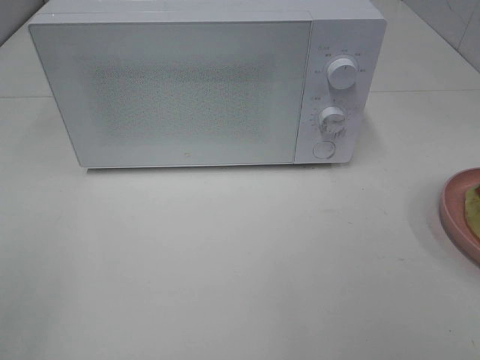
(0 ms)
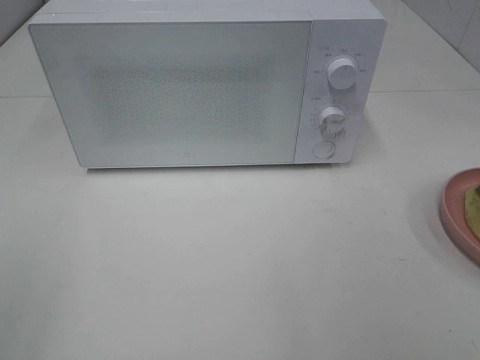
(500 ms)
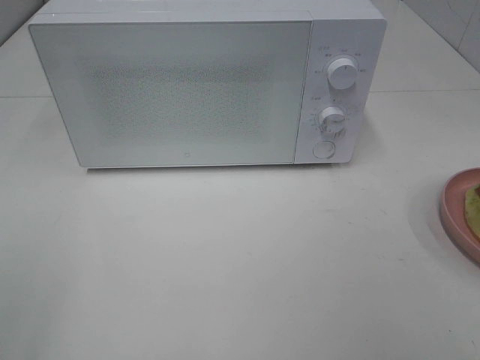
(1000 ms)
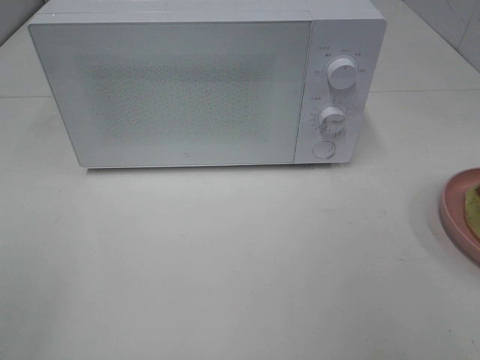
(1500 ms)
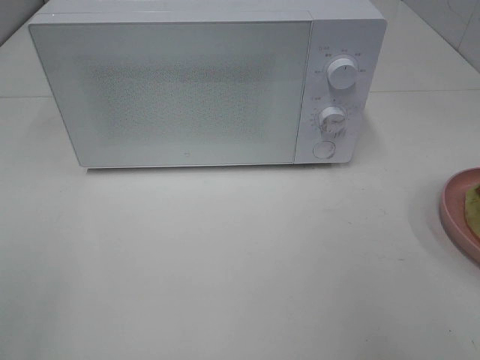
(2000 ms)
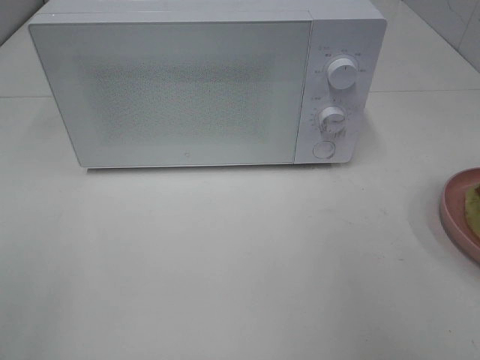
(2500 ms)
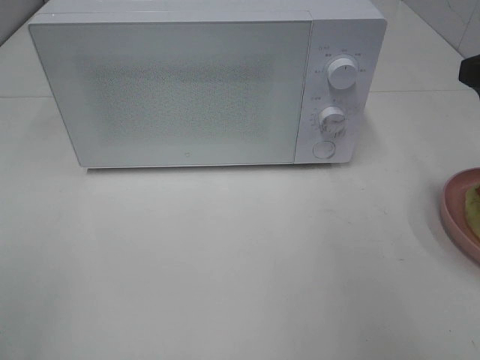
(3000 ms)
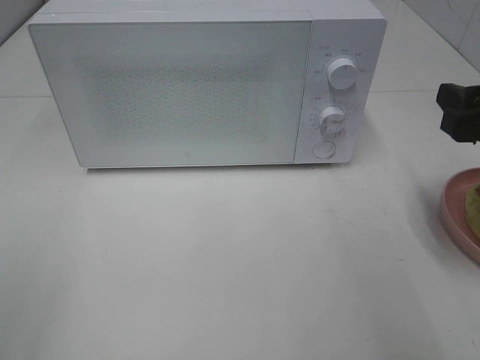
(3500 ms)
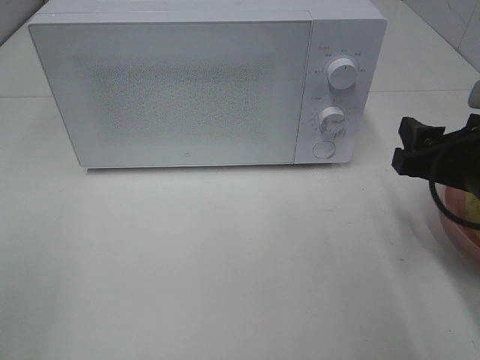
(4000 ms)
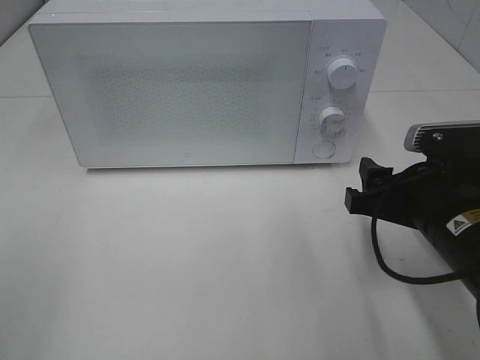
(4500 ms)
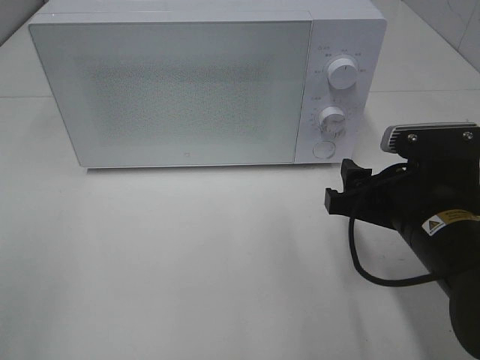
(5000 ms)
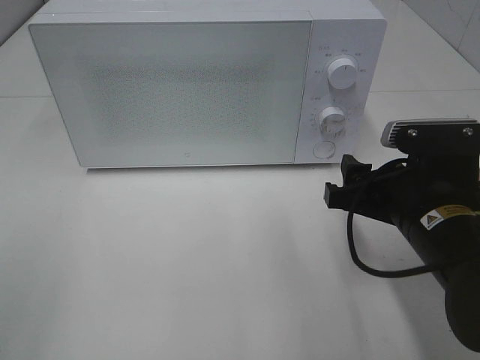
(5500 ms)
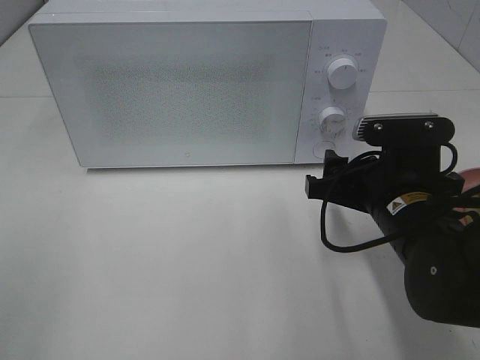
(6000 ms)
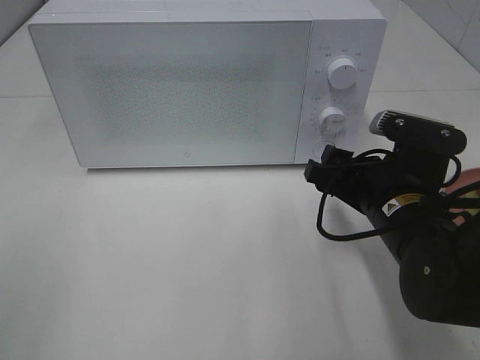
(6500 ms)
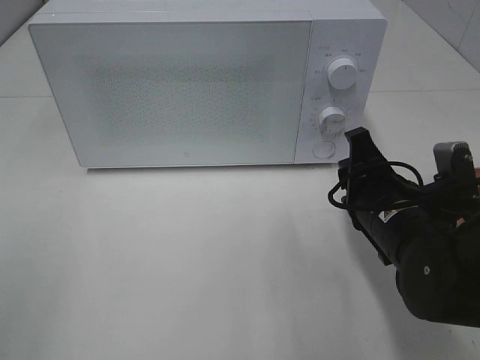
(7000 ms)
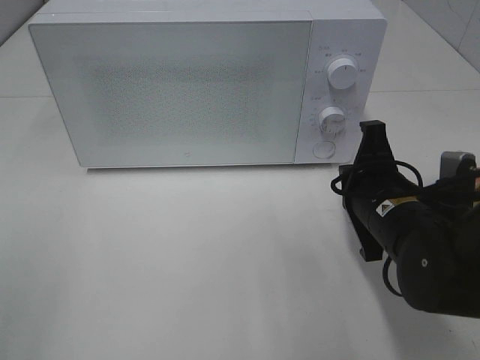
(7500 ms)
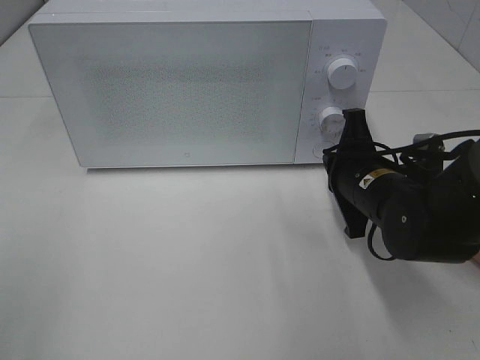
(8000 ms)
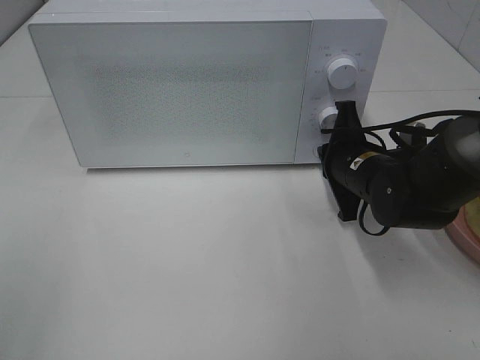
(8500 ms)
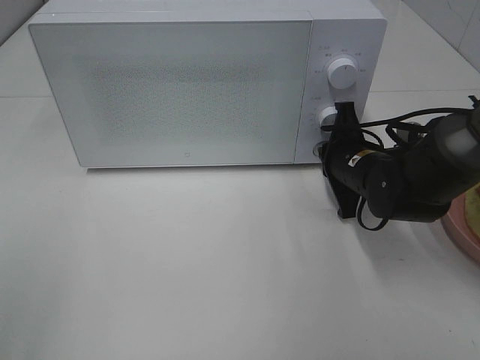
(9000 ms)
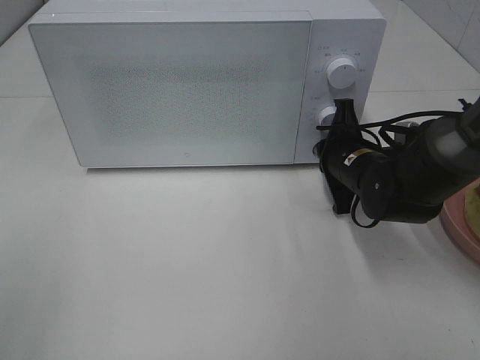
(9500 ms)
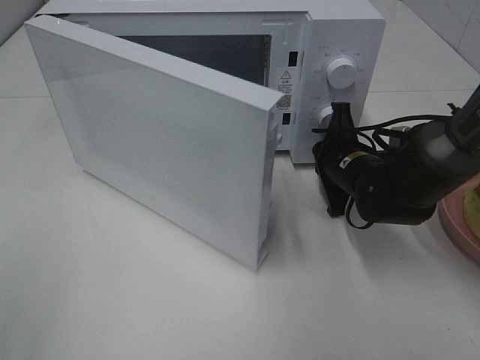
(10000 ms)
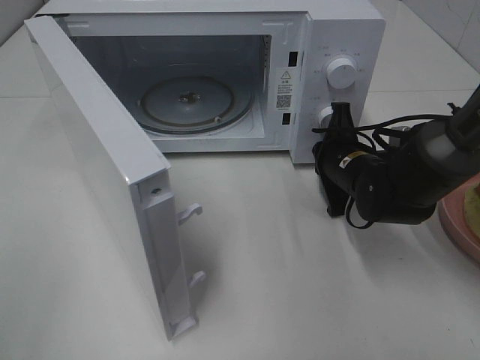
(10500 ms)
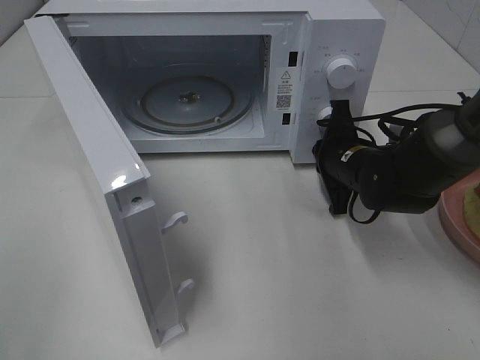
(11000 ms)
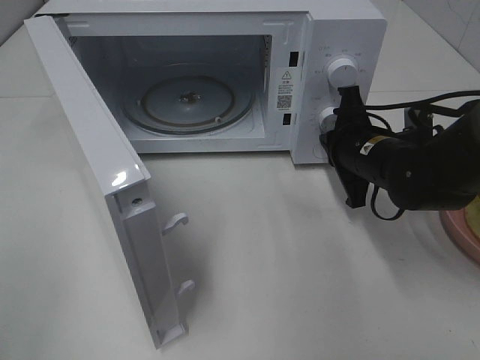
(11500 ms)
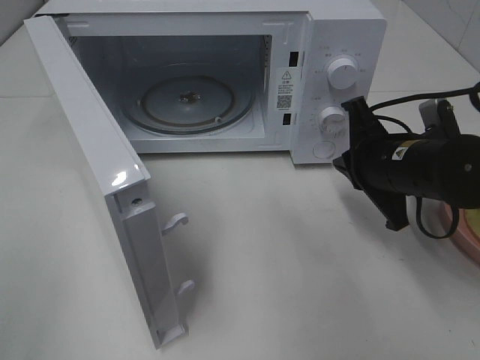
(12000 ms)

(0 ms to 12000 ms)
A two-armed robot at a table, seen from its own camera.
Task of the whole recording: Heat Sandwich.
Step, 0 ms - 11000 ms: Right hand: press the switch.
2000 ms - 4000 ms: The right gripper moves downward and forward, roughly 15 cm.
4000 ms - 6000 ms: The right gripper moves to the left, some 10 cm.
6000 ms - 8000 ms: The right gripper is displaced forward by roughly 5 cm, and closes up.
8000 ms - 10000 ms: The right gripper shifts approximately 5 cm forward.
10000 ms - 12000 ms: The right gripper is displaced backward and upward by roughly 10 cm.

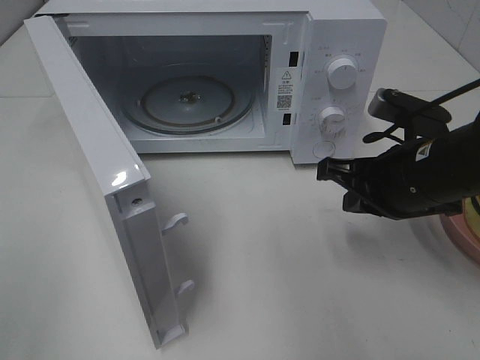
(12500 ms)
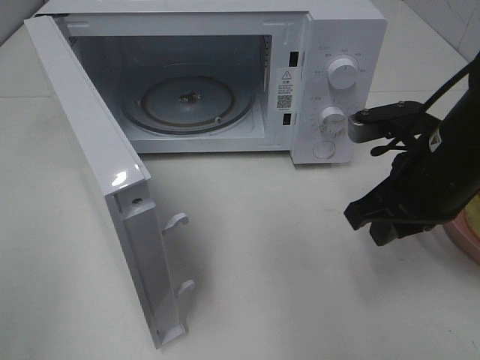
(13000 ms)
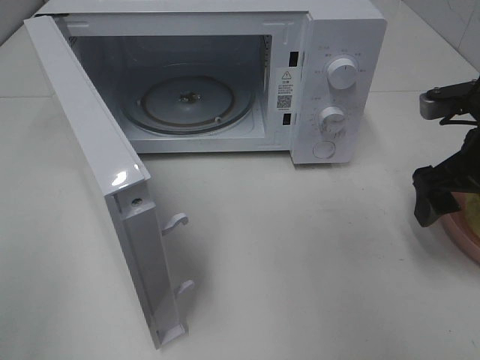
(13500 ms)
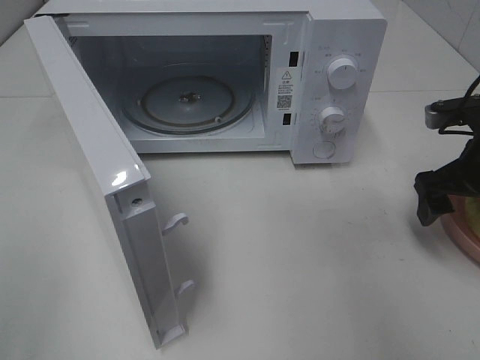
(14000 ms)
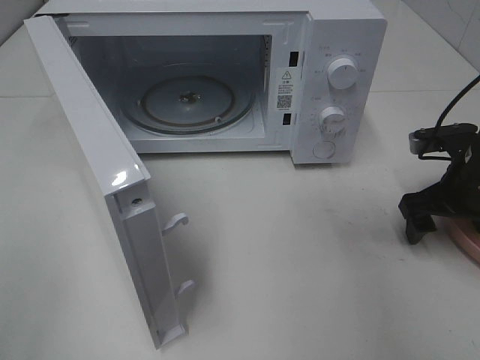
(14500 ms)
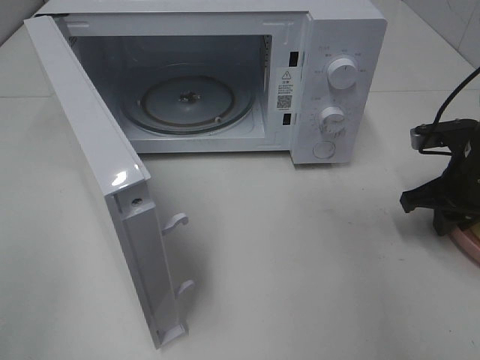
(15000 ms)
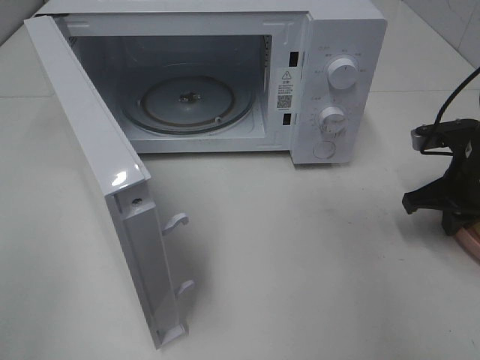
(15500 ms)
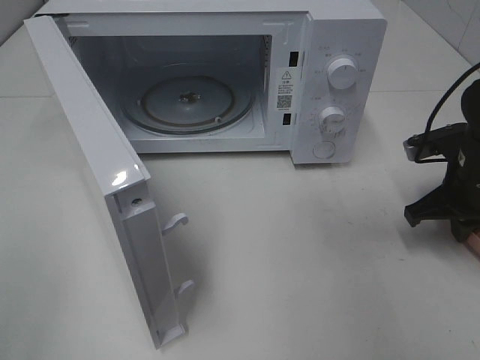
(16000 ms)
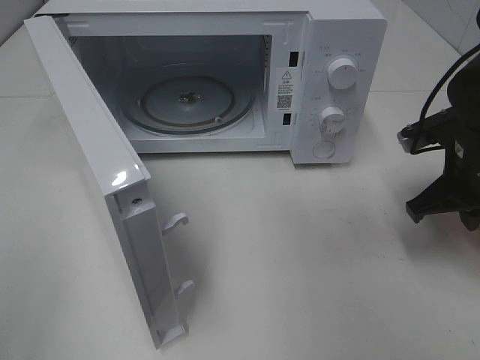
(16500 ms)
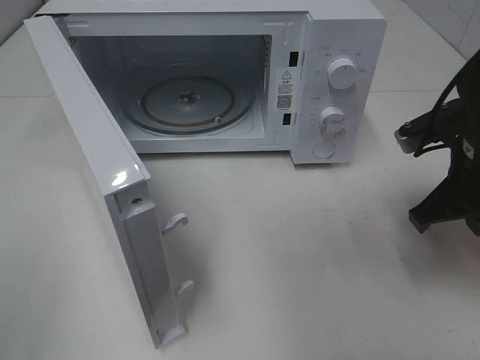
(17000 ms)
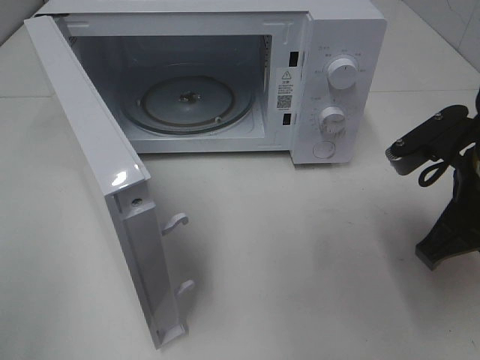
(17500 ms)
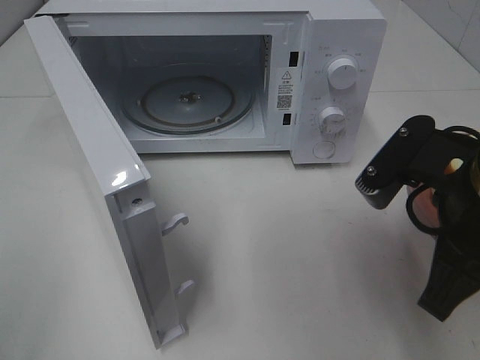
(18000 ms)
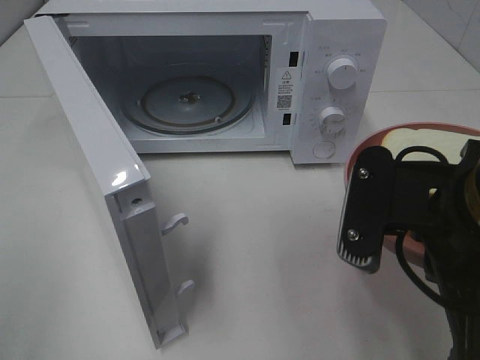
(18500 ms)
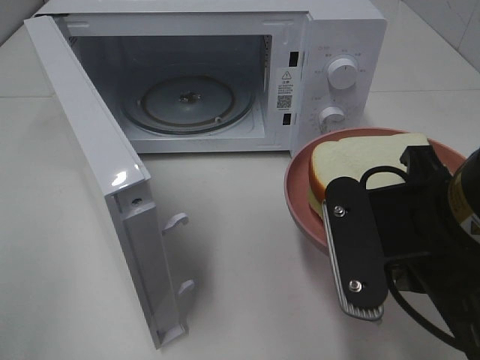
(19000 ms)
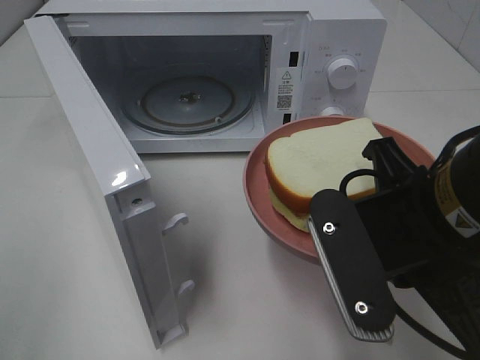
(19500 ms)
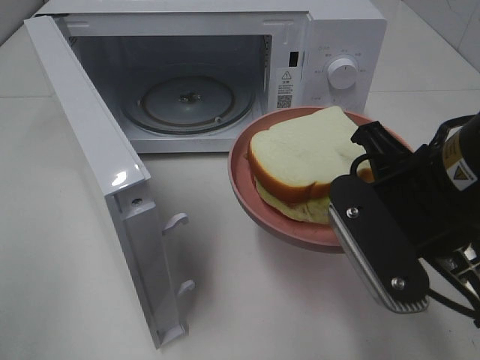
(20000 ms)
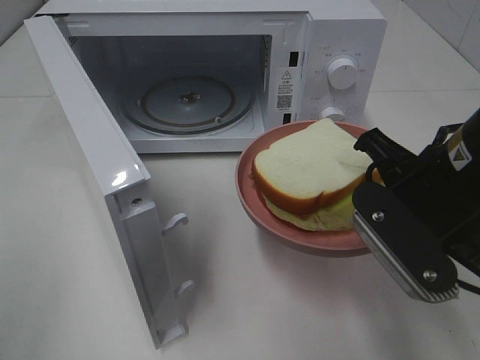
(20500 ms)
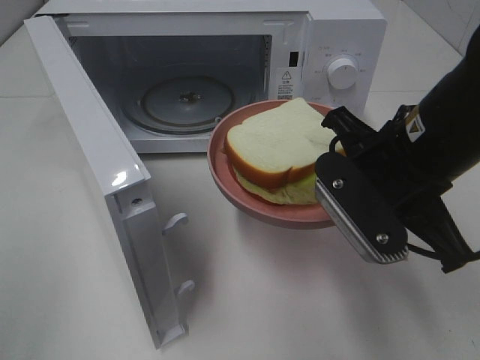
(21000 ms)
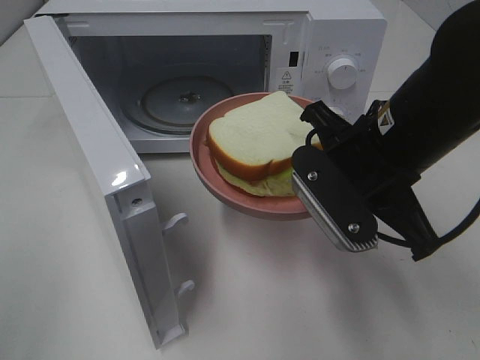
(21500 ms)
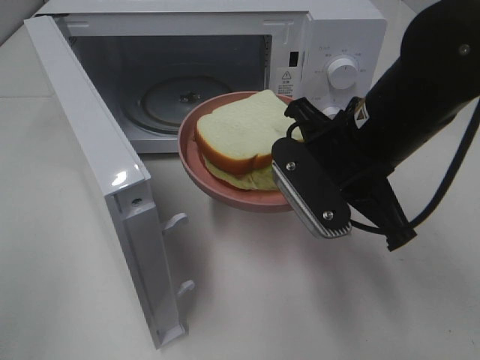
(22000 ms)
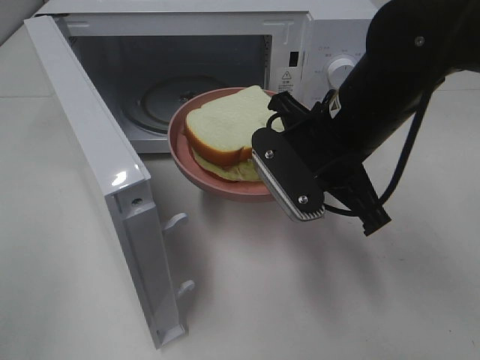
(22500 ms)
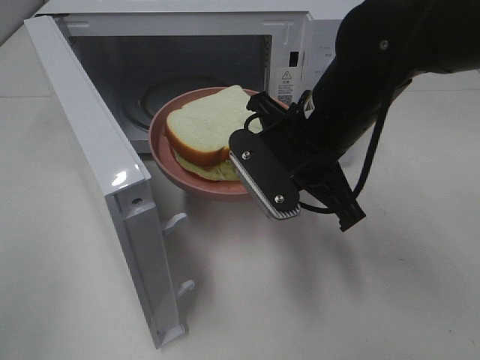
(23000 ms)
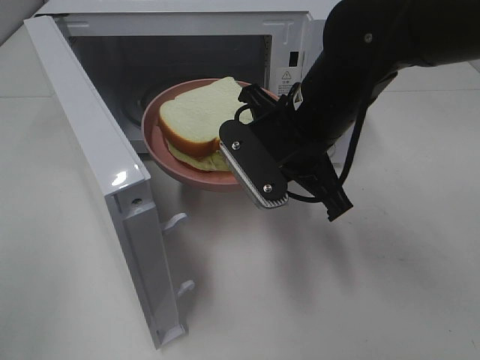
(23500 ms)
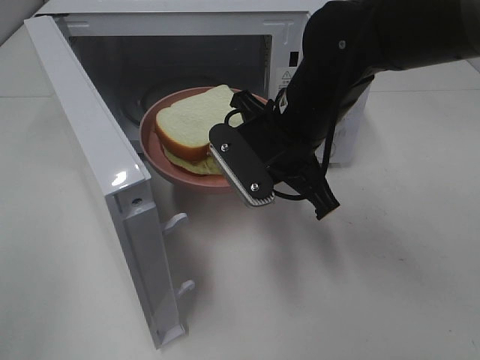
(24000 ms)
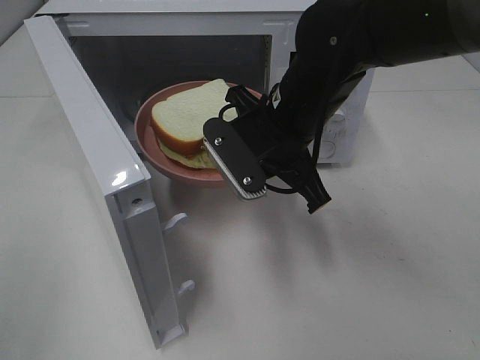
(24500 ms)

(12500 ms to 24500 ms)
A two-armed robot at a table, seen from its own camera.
Task of the whole recording: Heat Sandwich.
Step, 12500 ms - 15500 ms: Right hand: grab the plate with the sandwich.
12500 ms - 14500 ms: The right gripper goes some 10 cm to the right and forward, and opens up.
14500 ms - 16500 ms: The right gripper closes.
16500 ms - 18500 ms: The right gripper travels backward, to the left and upward by roughly 20 cm.
18500 ms - 20500 ms: The right gripper moves forward, roughly 5 cm.
20500 ms - 22500 ms: The right gripper moves forward and to the left, approximately 10 cm.
22500 ms - 24500 ms: The right gripper changes place by some 5 cm.

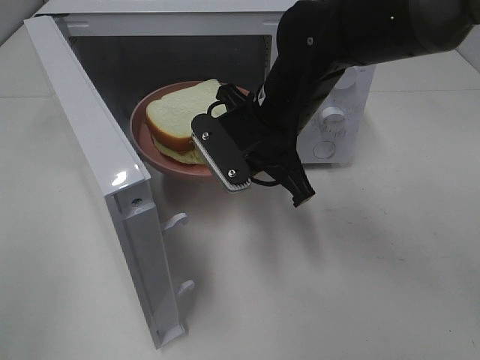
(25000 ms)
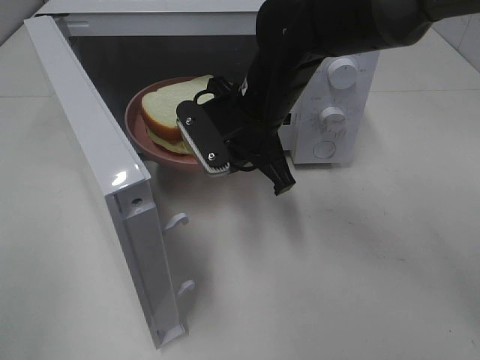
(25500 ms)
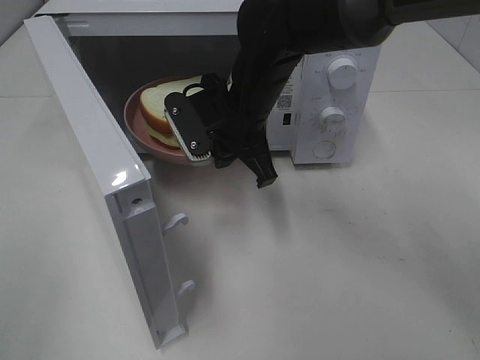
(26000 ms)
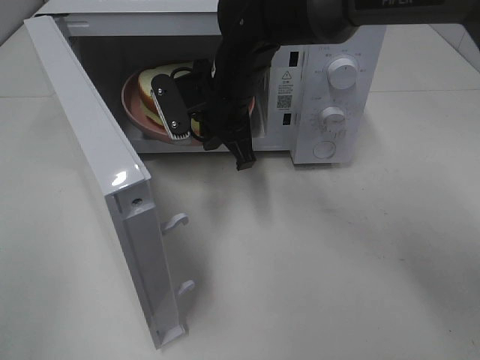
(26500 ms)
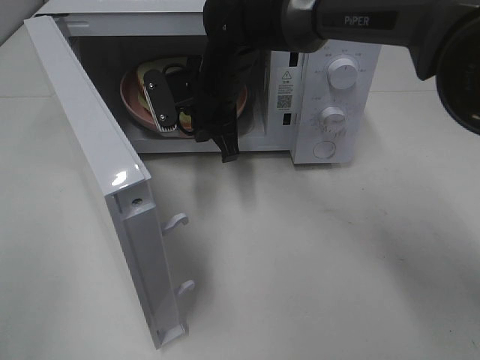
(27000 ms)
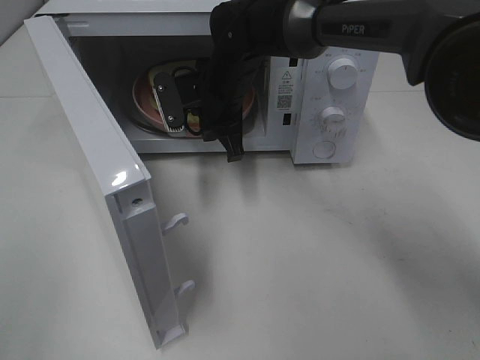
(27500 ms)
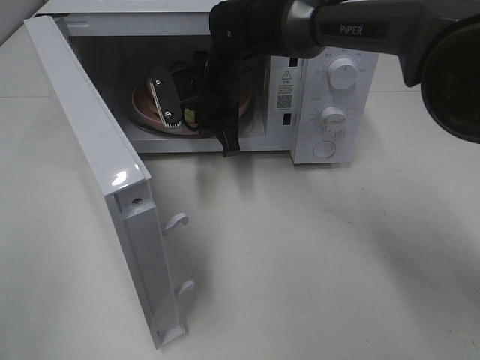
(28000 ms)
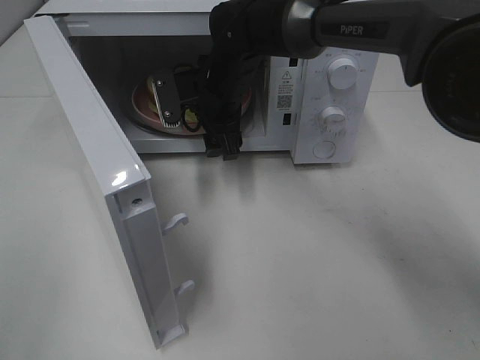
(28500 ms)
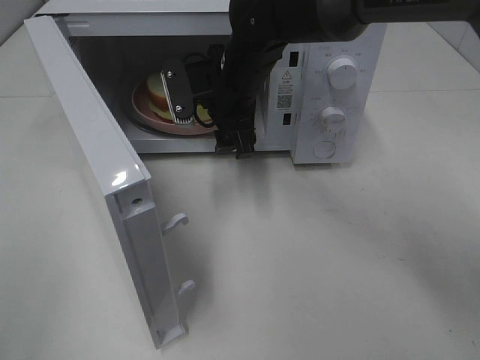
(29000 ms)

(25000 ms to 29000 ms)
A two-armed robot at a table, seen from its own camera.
Task of the whole recording: Heat Sandwich.
Step, 25000 ms - 29000 ms: Right hand: place the plate in the microwave.
25000 ms - 27000 ms: The right gripper moves forward and to the left, some 10 cm.
27000 ms - 29000 ms: The right gripper opens up.
